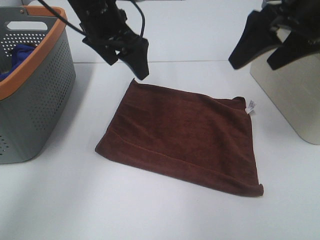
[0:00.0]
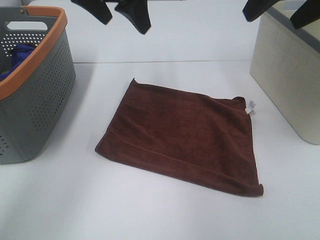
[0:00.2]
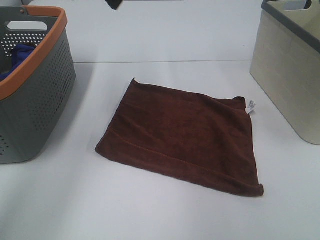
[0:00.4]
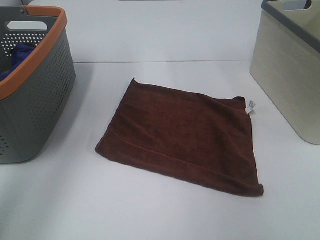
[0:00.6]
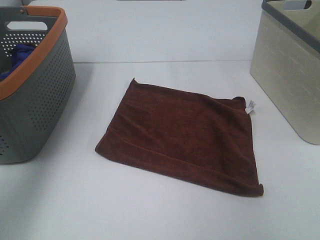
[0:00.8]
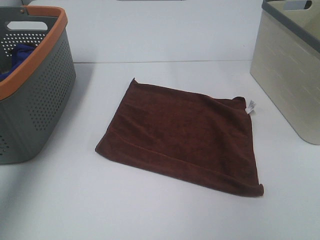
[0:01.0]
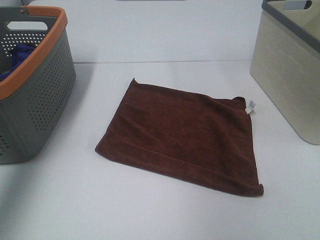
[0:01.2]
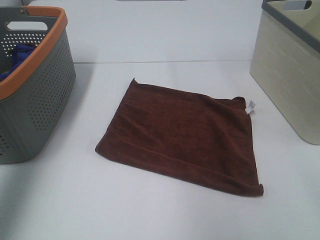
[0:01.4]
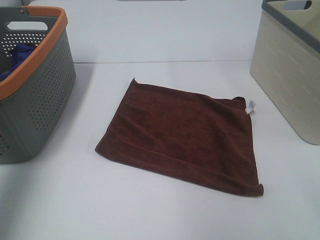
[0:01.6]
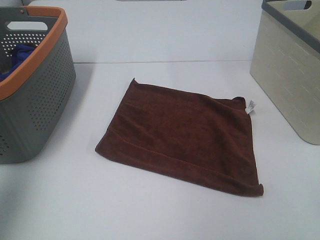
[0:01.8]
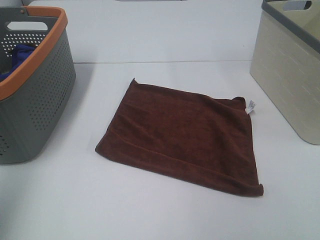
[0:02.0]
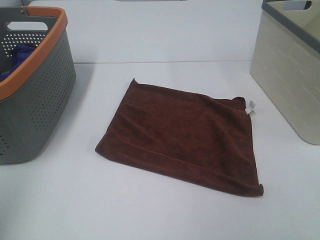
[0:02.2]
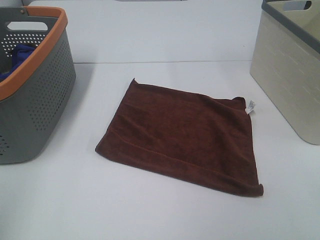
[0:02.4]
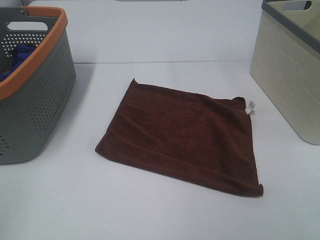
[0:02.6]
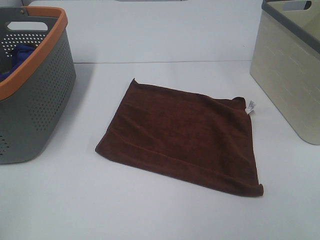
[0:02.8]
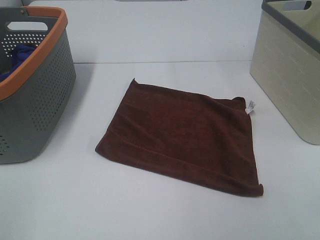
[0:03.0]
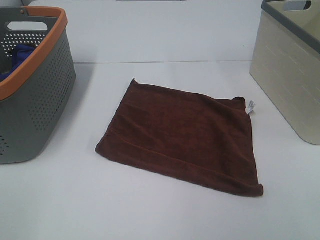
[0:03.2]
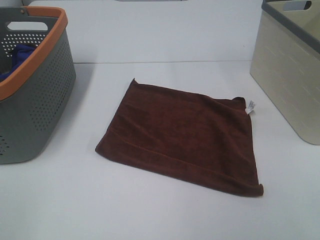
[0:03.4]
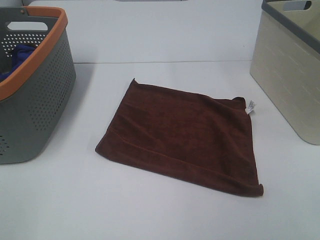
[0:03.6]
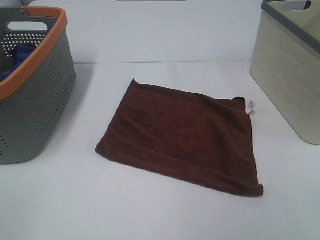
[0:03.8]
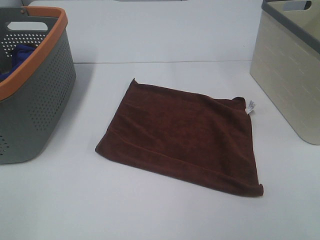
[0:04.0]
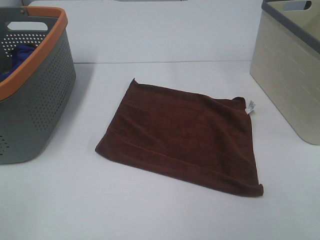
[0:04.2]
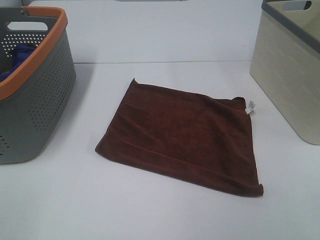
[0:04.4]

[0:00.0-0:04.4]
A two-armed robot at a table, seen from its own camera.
Task of the whole recording: Remove the towel and place it.
0:00.0 to 0:01.4: The left gripper goes about 30 cm to the left, backward and upward. The right gripper goes approximately 15 cm backward.
0:01.4 to 0:03.0: The left gripper travels backward and downward by roughly 25 cm.

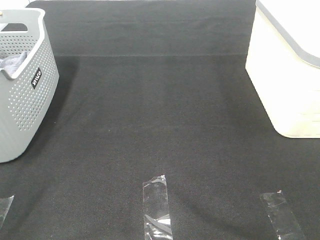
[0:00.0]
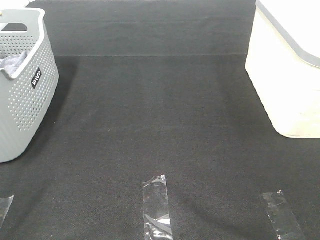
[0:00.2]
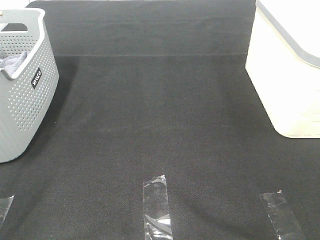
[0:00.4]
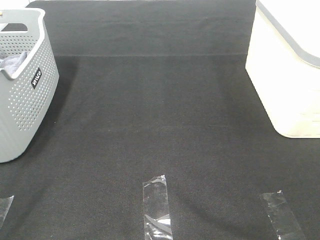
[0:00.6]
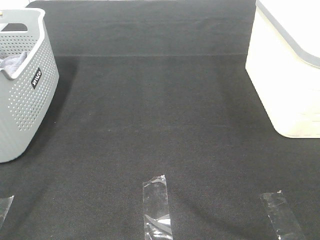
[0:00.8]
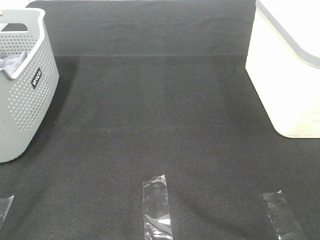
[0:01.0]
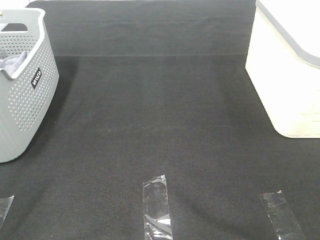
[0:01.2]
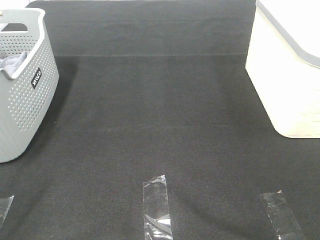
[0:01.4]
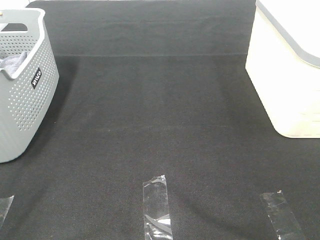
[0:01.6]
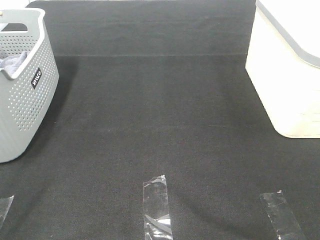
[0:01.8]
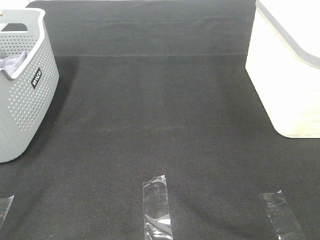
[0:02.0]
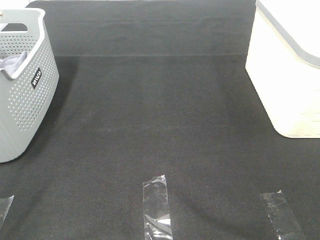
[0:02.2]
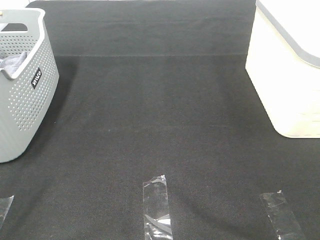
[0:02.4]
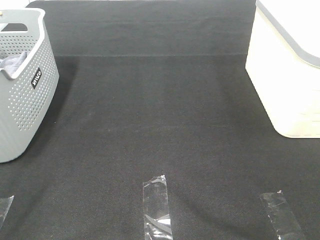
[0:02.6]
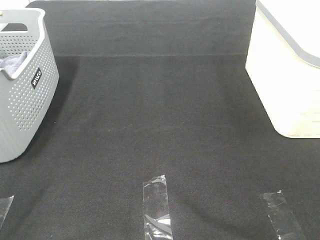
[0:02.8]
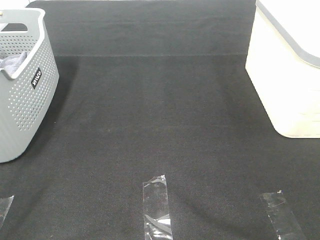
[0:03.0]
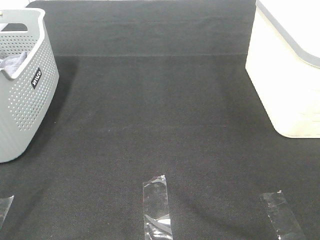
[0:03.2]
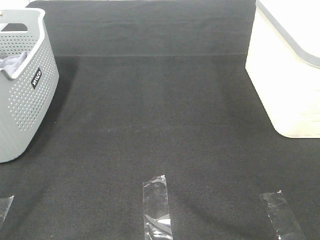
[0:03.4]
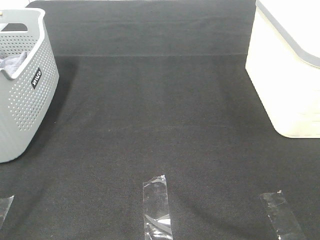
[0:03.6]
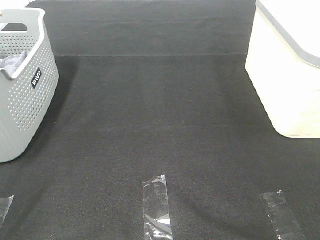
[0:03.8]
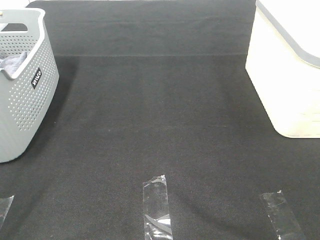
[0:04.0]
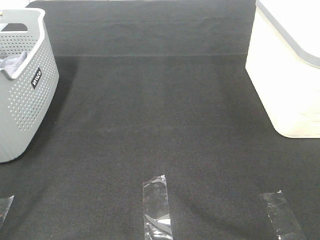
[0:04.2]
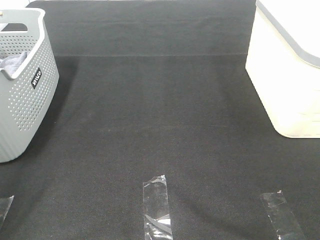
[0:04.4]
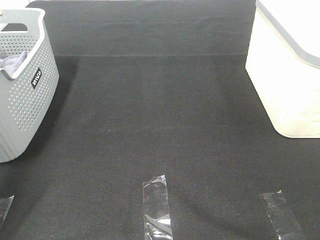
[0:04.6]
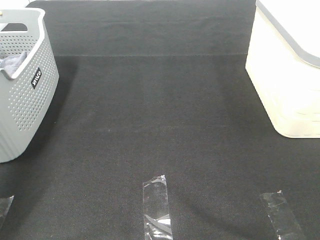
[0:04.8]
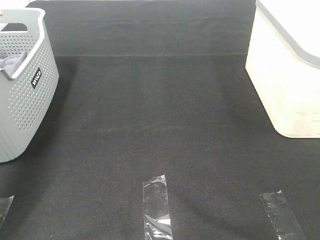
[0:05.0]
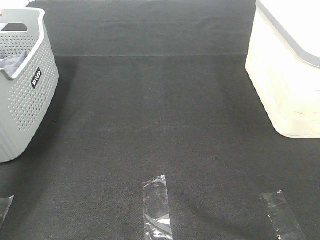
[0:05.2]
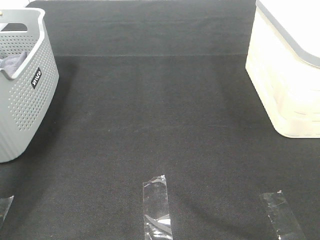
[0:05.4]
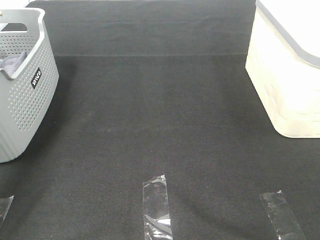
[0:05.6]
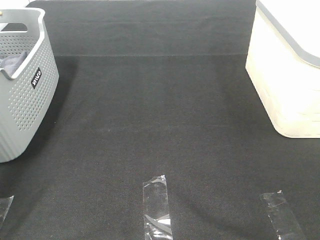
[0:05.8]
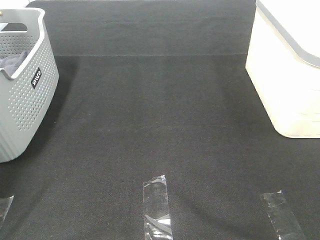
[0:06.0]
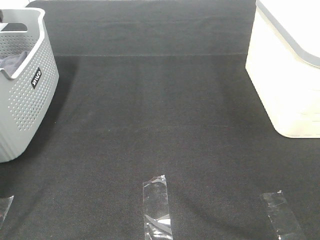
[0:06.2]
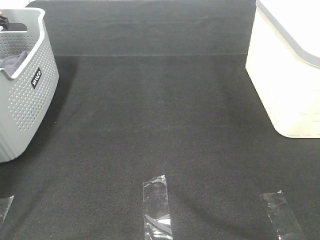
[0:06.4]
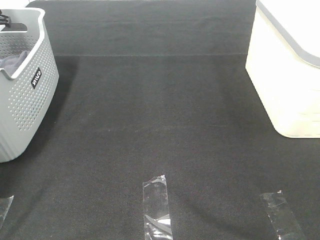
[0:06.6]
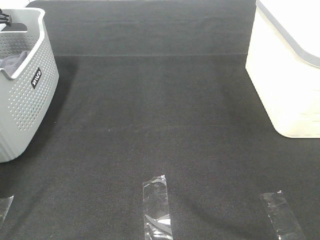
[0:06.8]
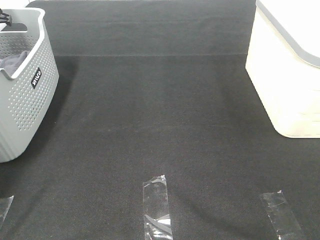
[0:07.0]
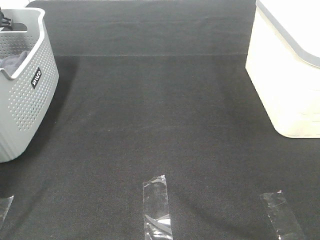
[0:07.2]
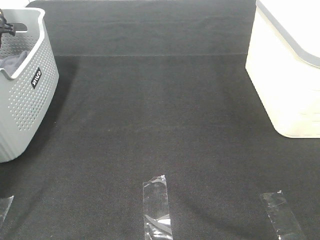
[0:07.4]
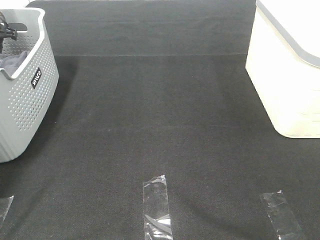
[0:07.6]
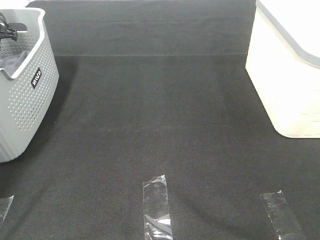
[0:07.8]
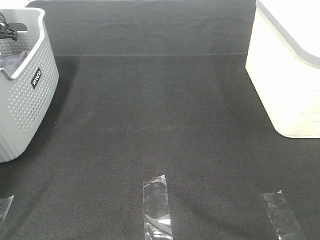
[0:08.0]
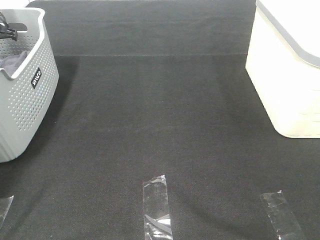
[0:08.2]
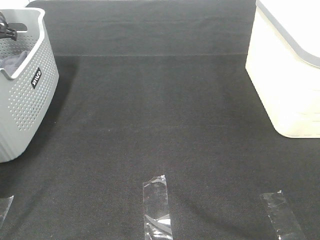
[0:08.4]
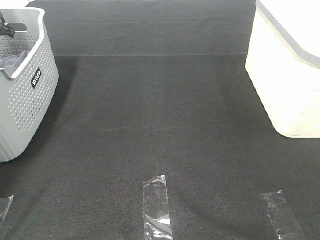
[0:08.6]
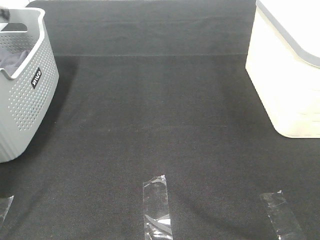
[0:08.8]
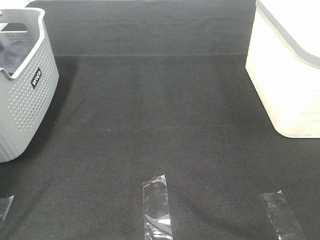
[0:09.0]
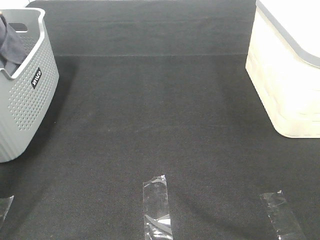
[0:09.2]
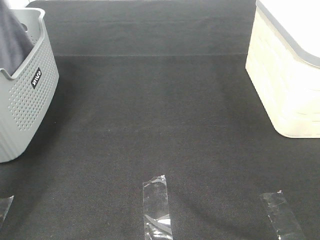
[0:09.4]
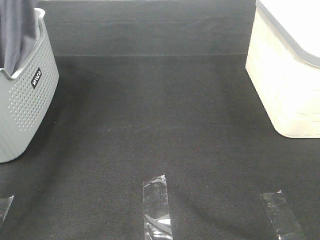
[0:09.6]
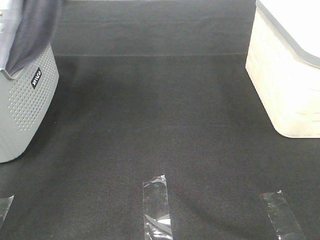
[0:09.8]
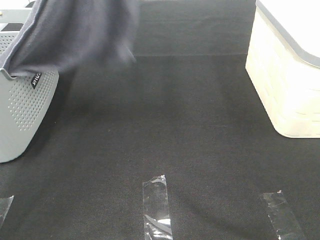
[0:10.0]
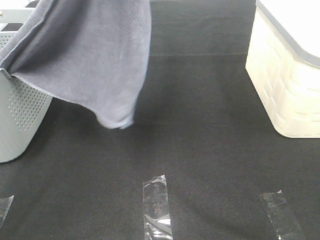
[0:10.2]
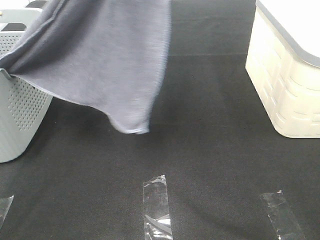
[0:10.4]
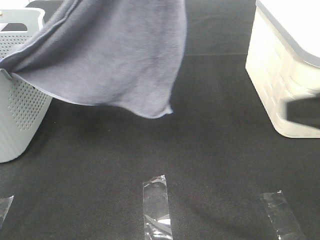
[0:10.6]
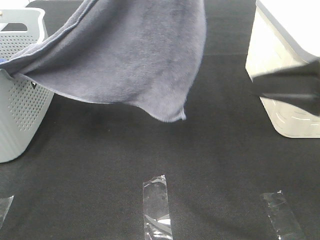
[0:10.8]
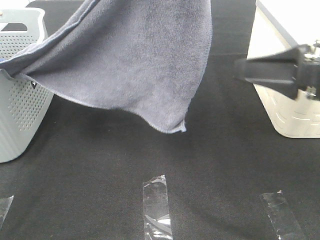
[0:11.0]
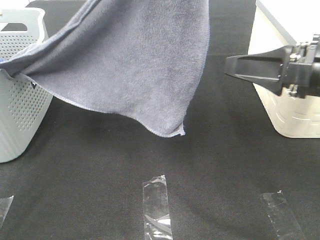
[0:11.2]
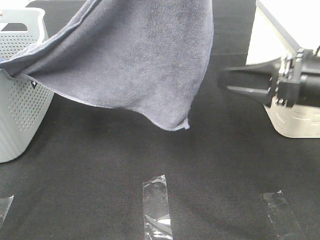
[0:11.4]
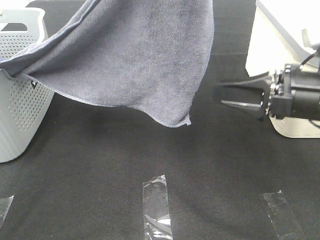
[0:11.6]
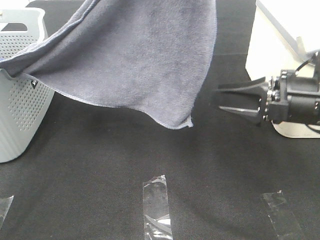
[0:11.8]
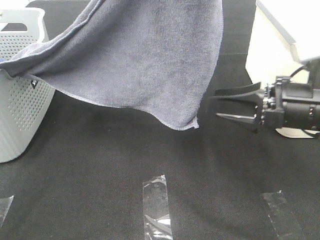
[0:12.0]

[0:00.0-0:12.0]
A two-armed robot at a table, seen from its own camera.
Task of the whole recording: Remove the towel and place it.
0:00.0 to 0:03.0: Both grippers stay about where they are.
0:04.4 to 0:06.0: The left gripper travels forward by approximately 40 cm.
0:06.0 to 0:07.6: The left gripper moves downward, roughly 10 cm.
0:07.6 to 0:09.0: The left gripper shifts roughly 15 cm upward, and closes its fingers.
0:09.0 to 0:10.4: The right gripper travels forward by some 10 cm; the left gripper goes approximately 40 cm to the right, backward and upward.
0:10.4 to 0:12.0: The right gripper shifts some 20 cm forward and downward.

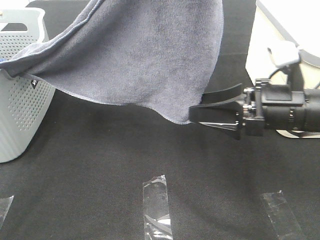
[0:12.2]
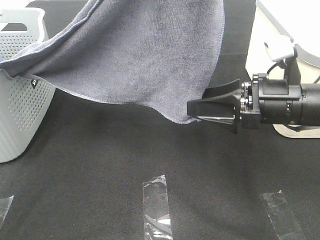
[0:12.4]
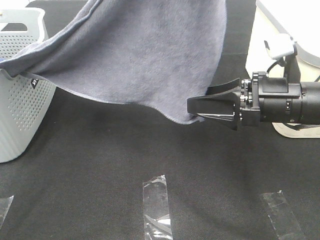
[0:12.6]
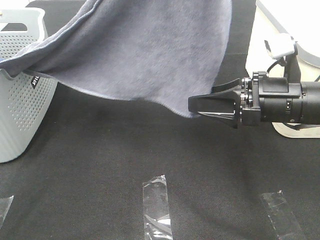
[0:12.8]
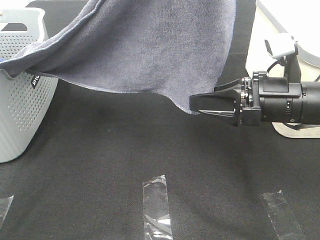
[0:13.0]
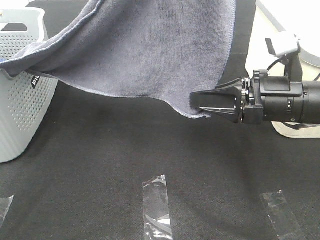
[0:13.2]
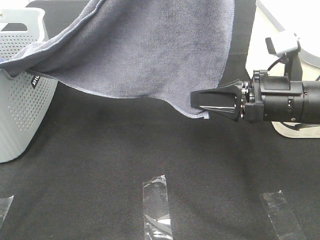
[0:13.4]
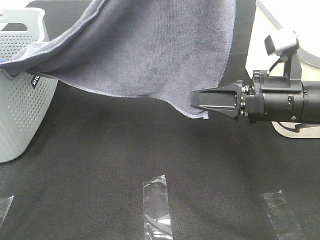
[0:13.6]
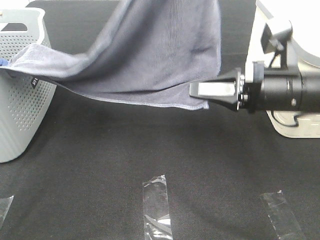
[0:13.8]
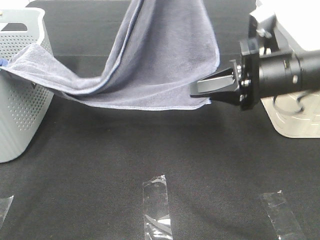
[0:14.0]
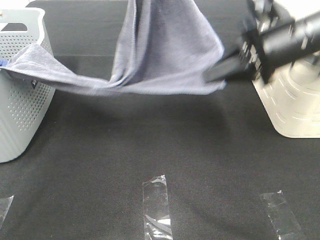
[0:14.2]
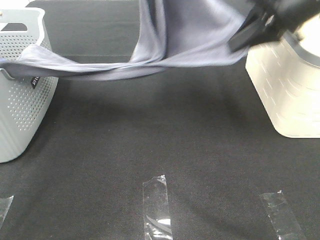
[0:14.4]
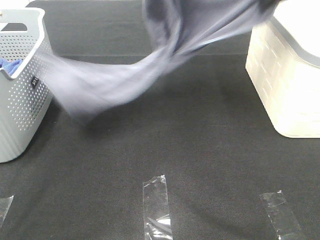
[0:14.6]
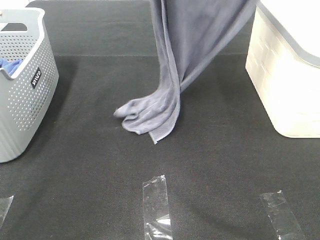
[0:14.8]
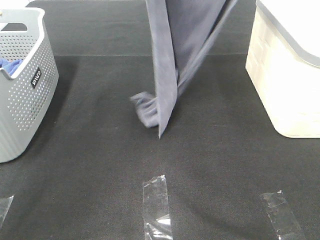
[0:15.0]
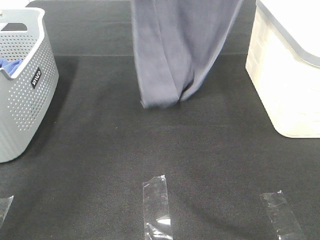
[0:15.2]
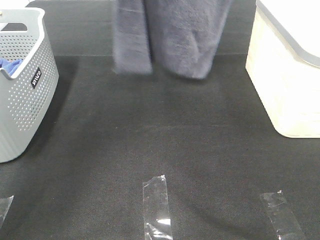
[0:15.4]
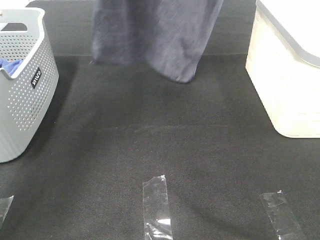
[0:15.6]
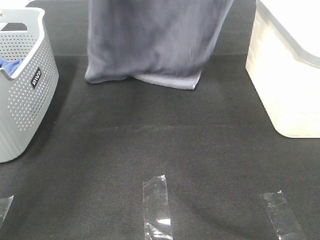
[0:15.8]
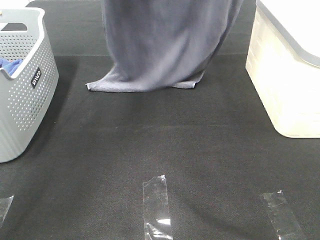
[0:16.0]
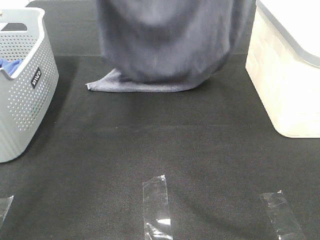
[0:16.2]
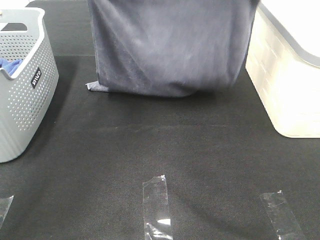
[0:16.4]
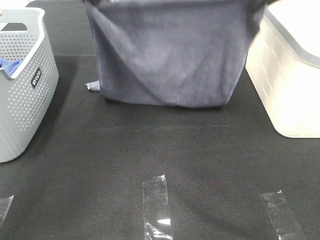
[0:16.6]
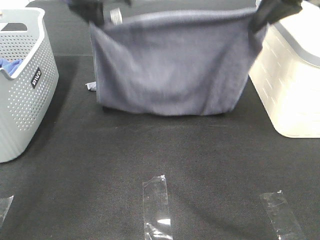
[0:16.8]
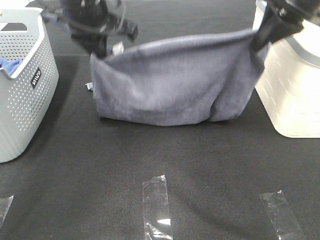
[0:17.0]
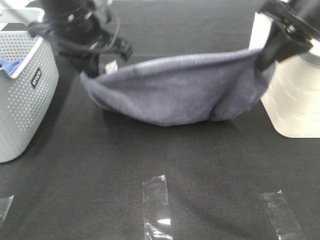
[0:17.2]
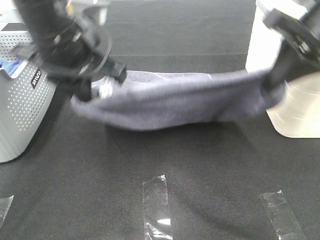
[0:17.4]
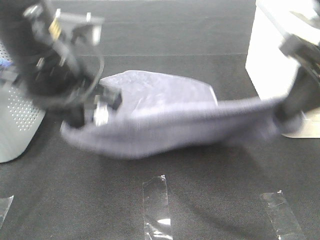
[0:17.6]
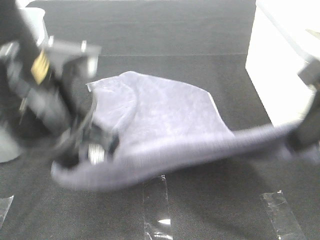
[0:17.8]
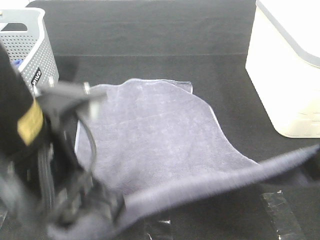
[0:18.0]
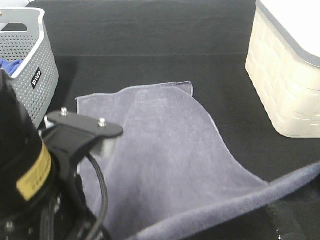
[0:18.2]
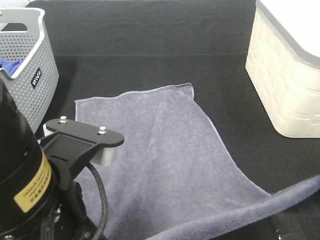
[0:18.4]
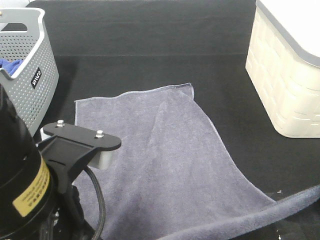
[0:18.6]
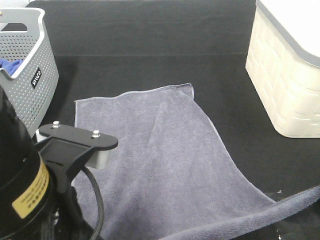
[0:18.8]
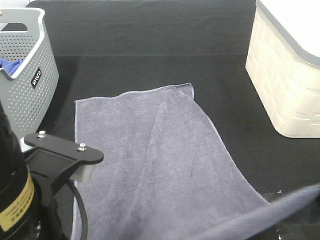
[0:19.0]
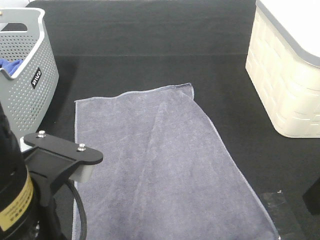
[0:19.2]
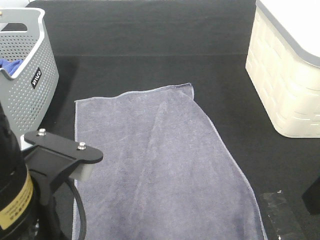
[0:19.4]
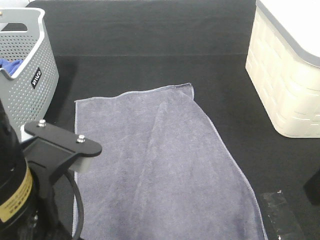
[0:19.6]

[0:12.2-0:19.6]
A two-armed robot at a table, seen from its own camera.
Task of the whole recording: Remove the towel and place it.
Step, 0:12.8 to 0:15.8: Left hand: spread the grey towel flat on the table.
Step, 0:12.8 to 0:15.8: Right hand: spread the grey towel flat on the table.
0:12.2 to 0:13.6: The right gripper closes.
0:13.6 to 0:15.2: The left gripper shifts roughly 15 cm forward and to the left. The right gripper moves upward and forward, some 35 cm.
0:15.2 to 0:16.6: Both grippers travel together downward, about 15 cm.
0:16.6 to 0:18.2: The two grippers go approximately 30 cm backward.
0:18.2 to 0:19.6: The right gripper opens up, while the left gripper opens.
